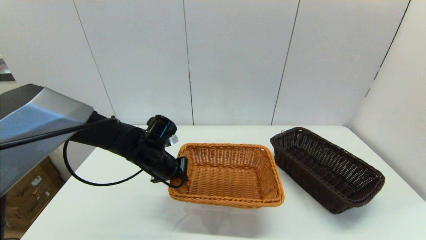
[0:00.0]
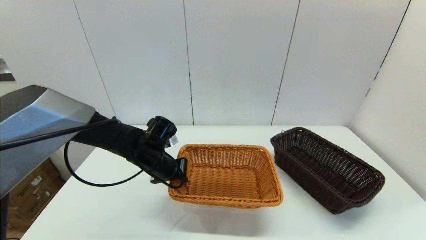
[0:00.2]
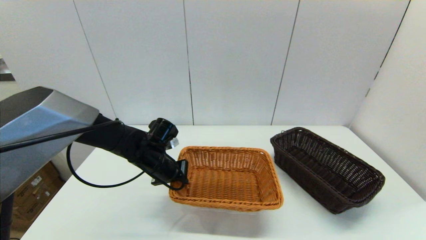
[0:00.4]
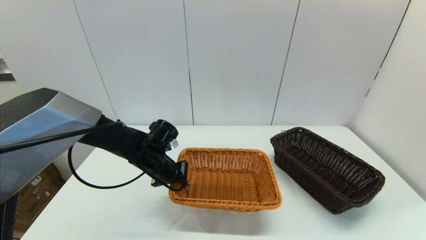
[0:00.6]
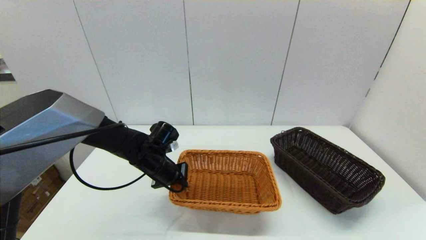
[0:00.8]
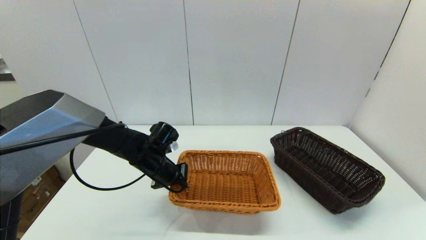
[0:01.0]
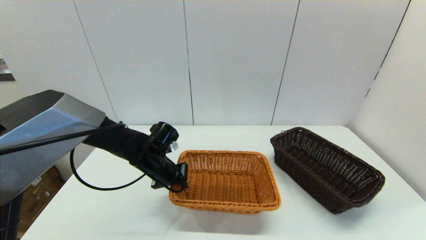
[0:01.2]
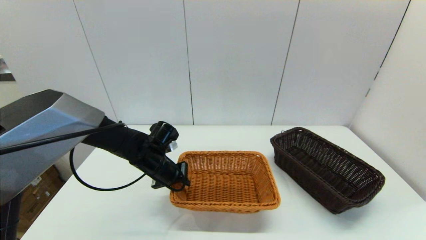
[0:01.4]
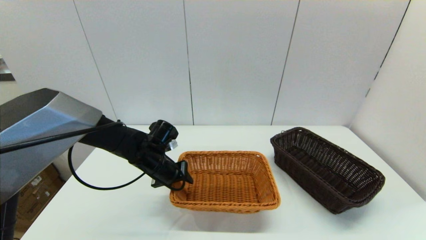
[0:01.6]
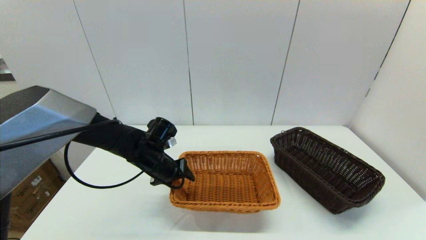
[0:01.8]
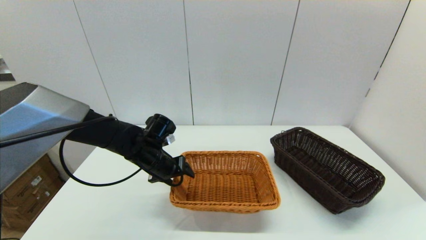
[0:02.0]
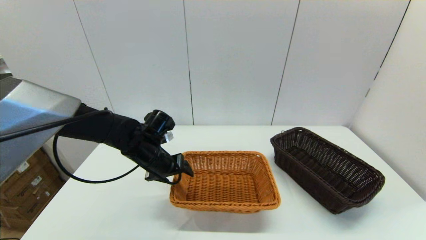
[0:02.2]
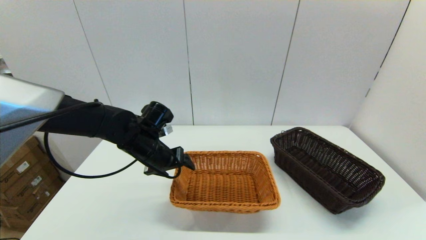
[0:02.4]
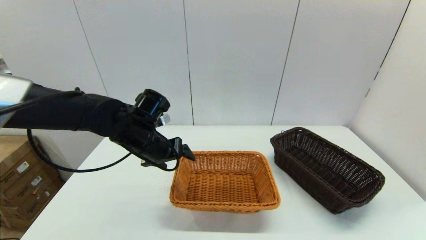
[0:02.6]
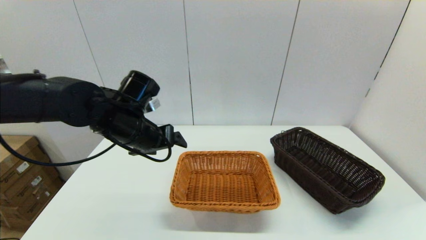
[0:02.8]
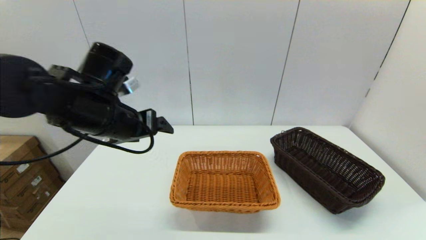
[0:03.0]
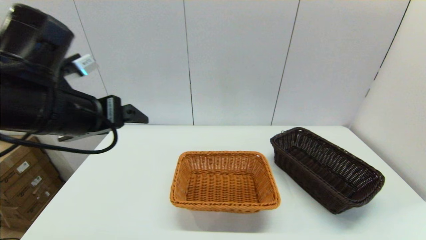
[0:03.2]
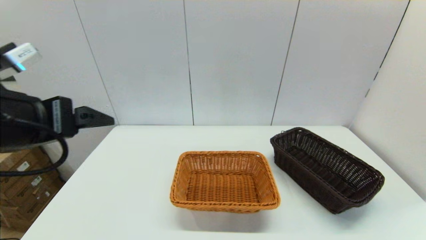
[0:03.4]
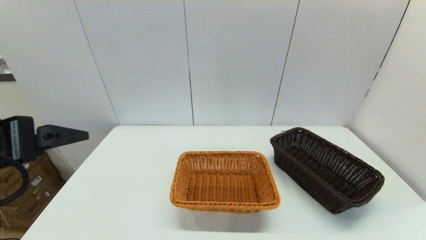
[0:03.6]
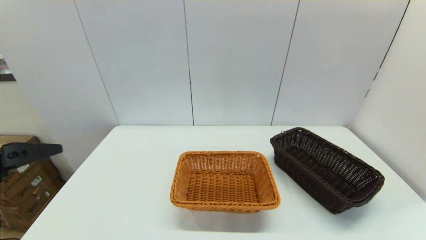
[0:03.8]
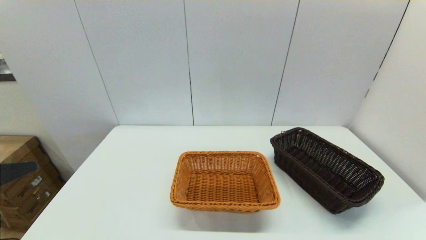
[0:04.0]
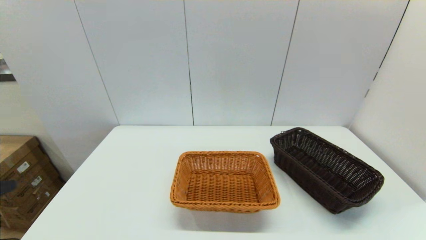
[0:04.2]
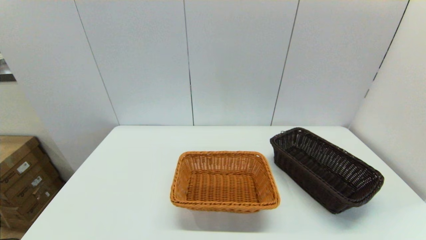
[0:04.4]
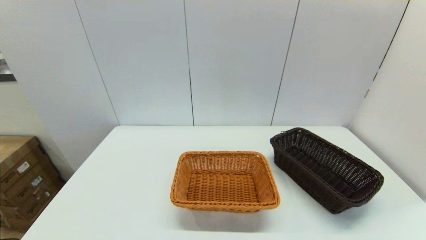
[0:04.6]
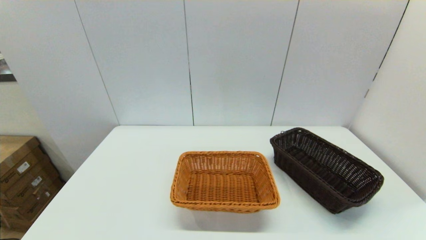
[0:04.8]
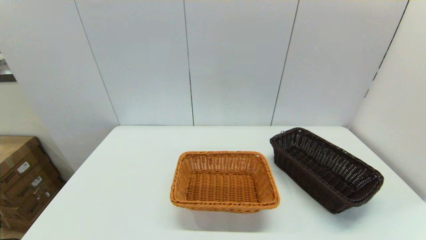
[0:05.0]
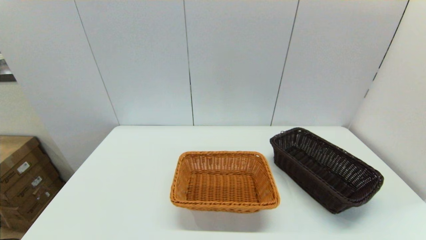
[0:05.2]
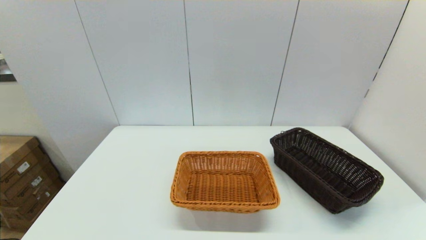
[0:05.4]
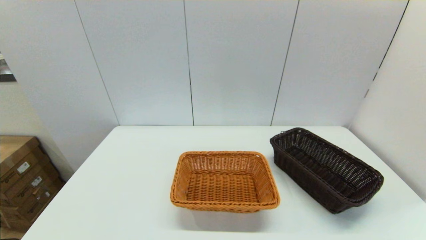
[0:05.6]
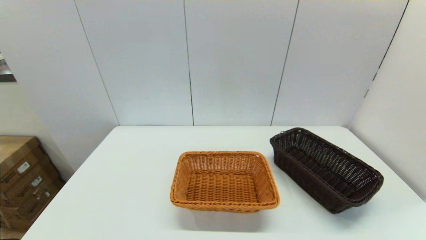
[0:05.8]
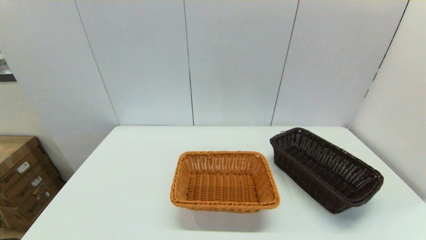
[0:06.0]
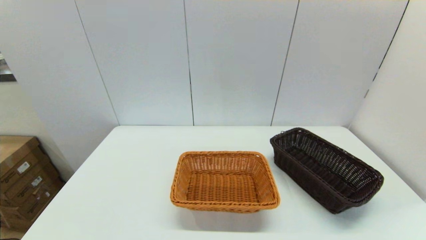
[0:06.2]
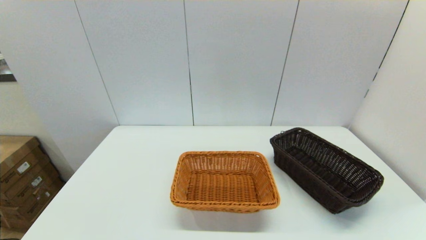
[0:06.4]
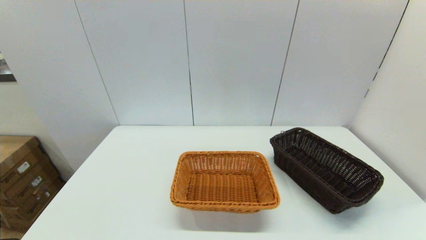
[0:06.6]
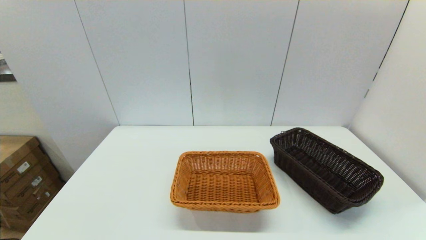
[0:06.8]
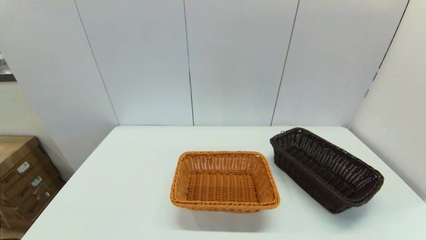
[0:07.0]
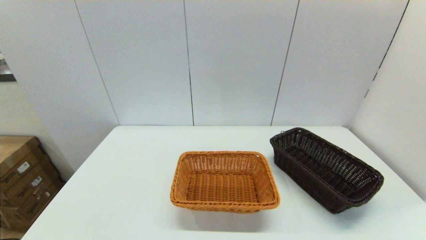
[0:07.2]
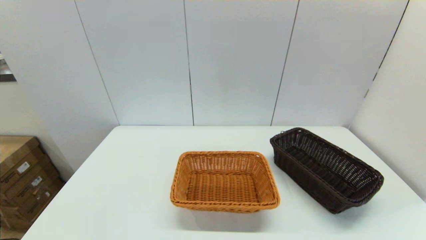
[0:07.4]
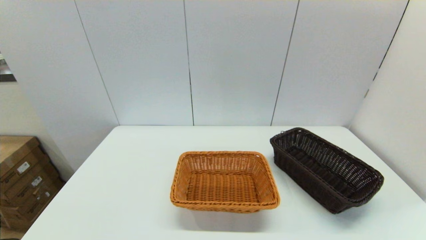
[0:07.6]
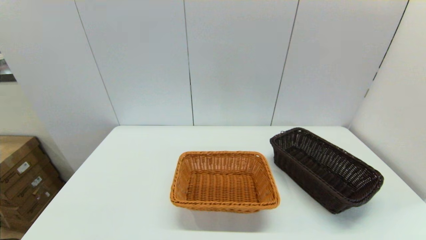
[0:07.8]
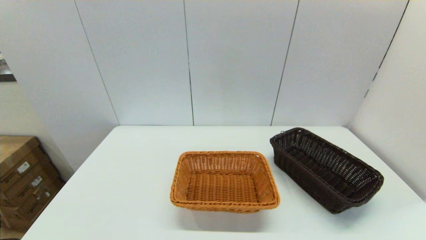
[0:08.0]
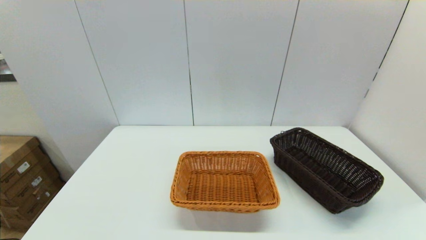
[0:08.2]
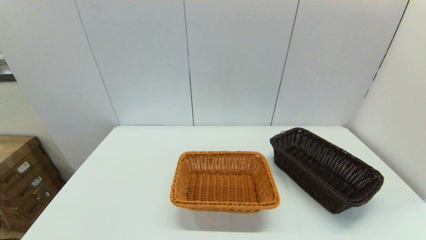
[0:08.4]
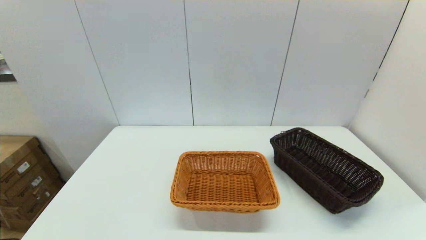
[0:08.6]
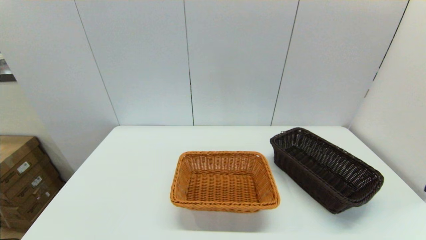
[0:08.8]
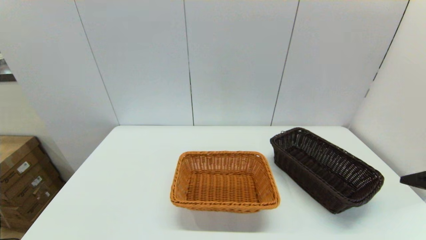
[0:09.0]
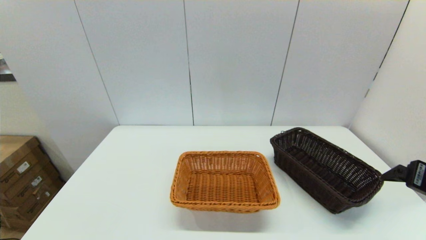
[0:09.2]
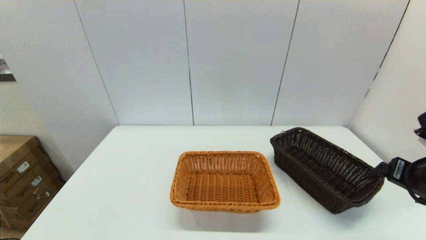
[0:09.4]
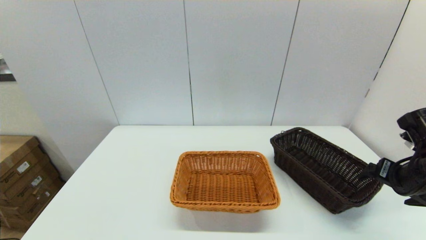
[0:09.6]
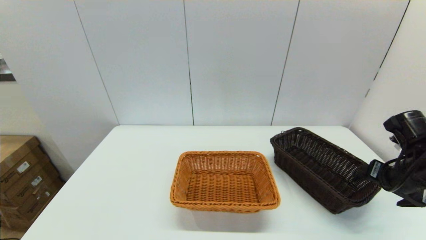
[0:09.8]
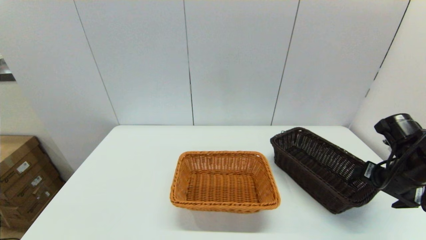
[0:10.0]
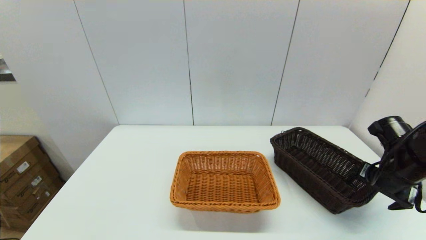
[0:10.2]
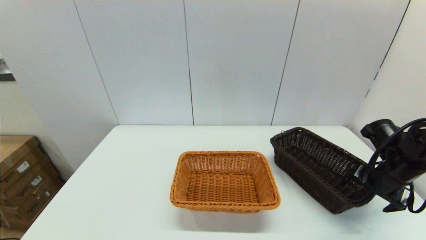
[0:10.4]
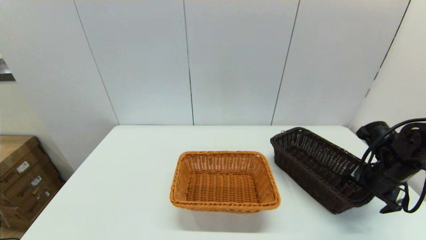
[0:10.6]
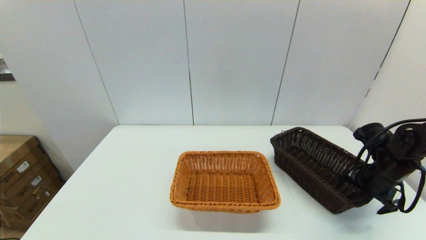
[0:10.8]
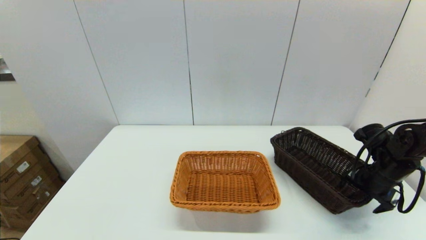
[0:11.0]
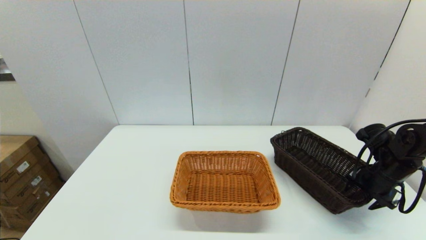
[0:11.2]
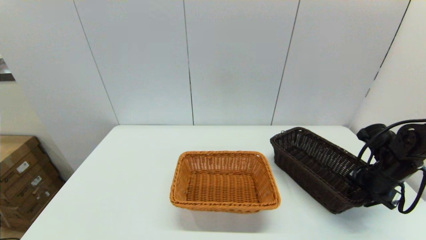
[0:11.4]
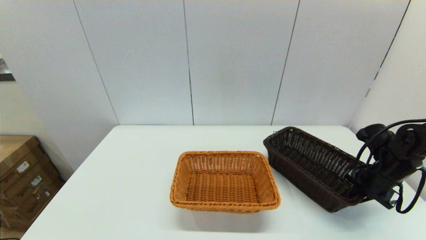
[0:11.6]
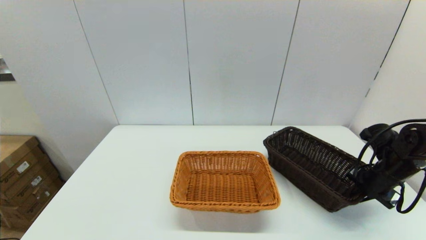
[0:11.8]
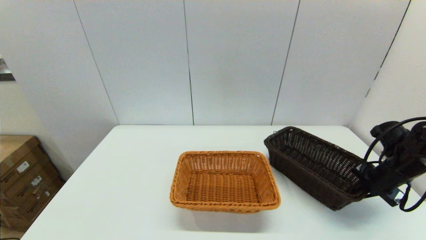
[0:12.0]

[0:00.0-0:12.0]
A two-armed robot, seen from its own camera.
Task of the whole recording: stack a basket on top of another basket.
Step, 0:00.0 to 0:02.4: Place the light basket on the middle of the table with the left gripper.
0:00.0 to 0:01.6: The left gripper opens its fingers.
0:01.6 to 0:03.0: The left gripper travels upward and backward by about 20 cm, and opens its fingers.
0:03.0 to 0:04.4: The left gripper moves backward and to the left, approximately 30 cm.
0:09.0 to 0:10.4: The right gripper moves forward and downward, roughly 20 cm.
0:10.4 to 0:12.0: The right gripper closes its fingers.

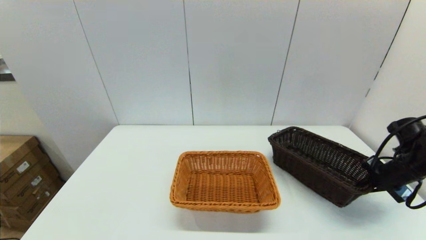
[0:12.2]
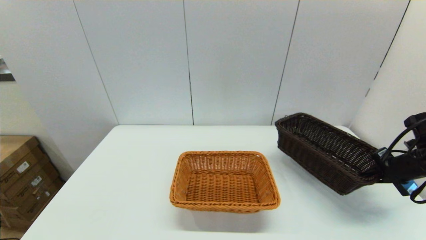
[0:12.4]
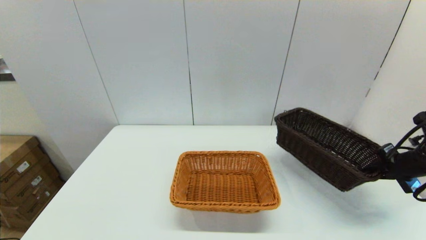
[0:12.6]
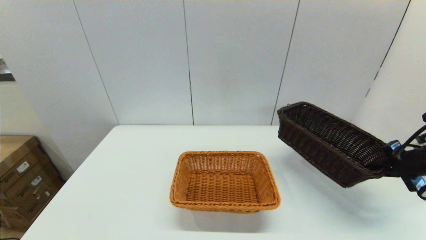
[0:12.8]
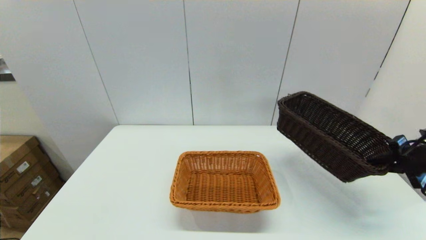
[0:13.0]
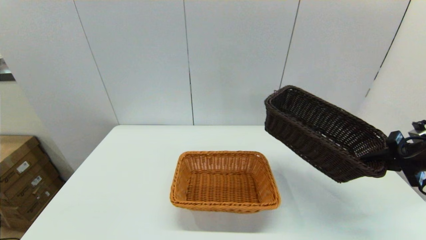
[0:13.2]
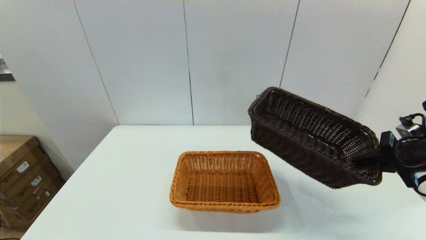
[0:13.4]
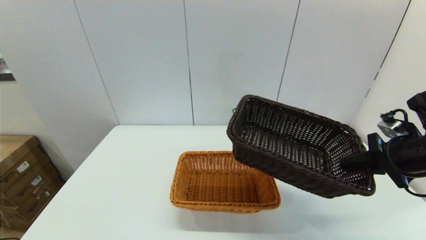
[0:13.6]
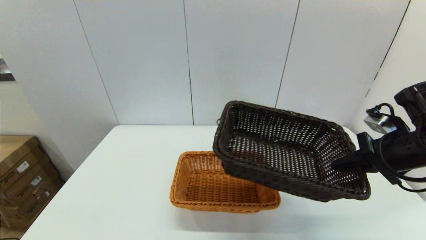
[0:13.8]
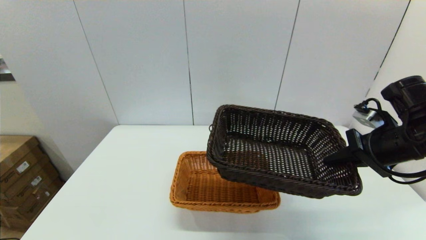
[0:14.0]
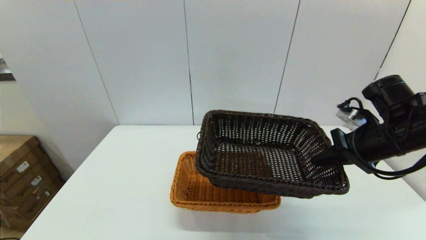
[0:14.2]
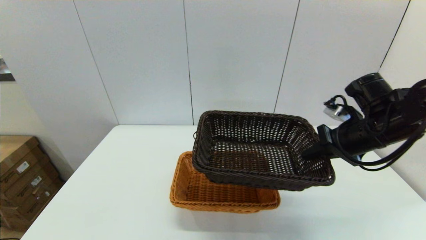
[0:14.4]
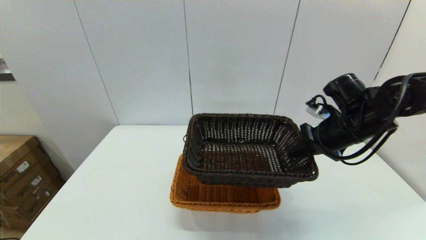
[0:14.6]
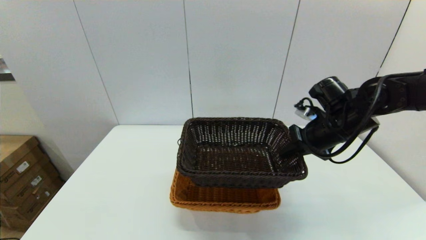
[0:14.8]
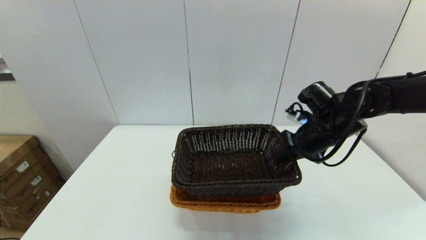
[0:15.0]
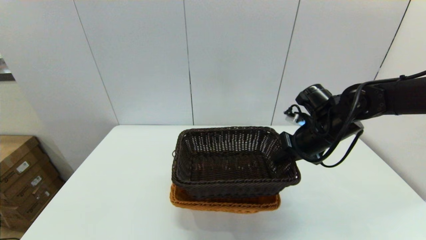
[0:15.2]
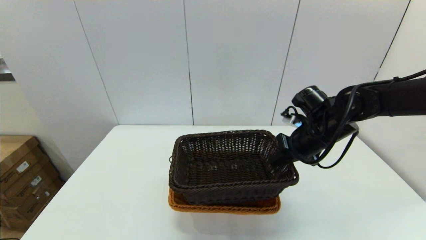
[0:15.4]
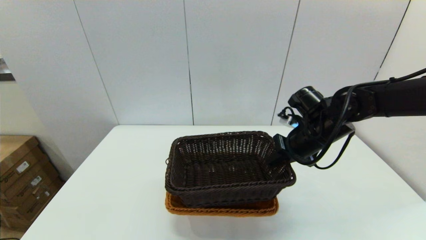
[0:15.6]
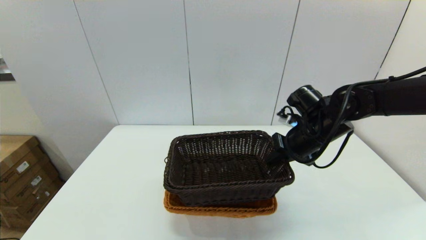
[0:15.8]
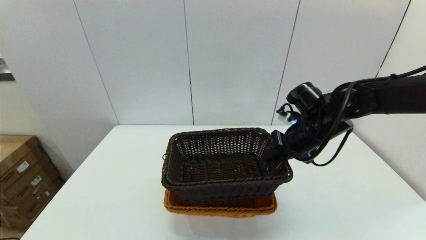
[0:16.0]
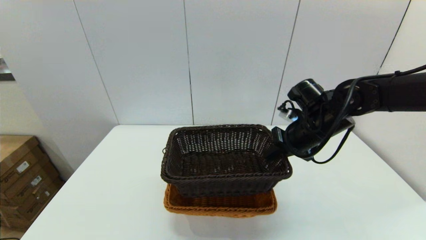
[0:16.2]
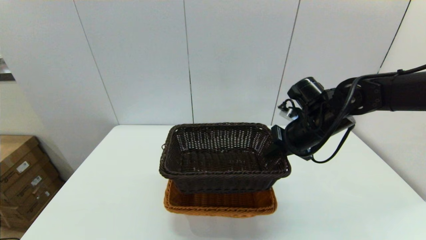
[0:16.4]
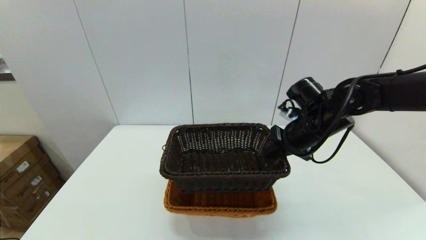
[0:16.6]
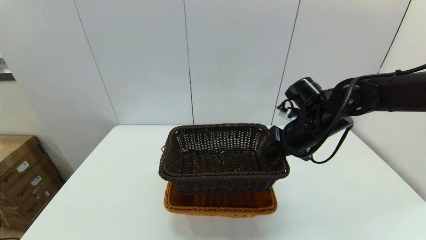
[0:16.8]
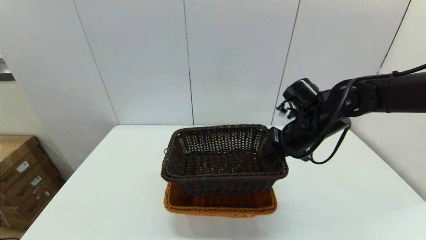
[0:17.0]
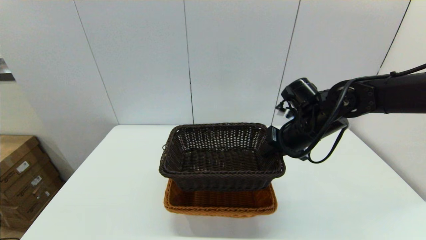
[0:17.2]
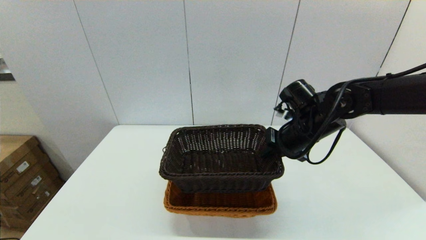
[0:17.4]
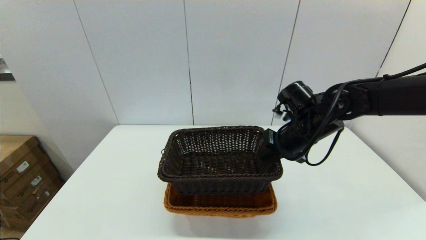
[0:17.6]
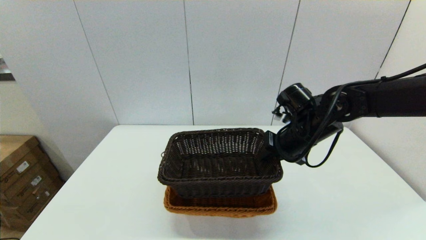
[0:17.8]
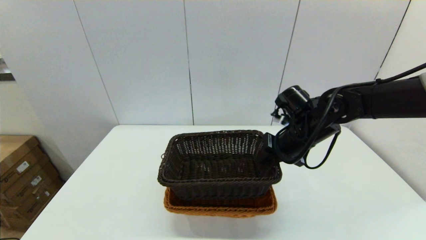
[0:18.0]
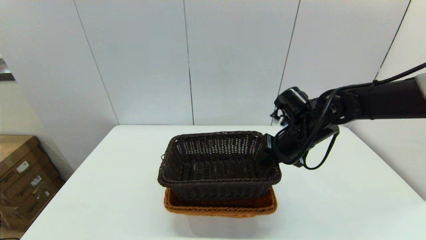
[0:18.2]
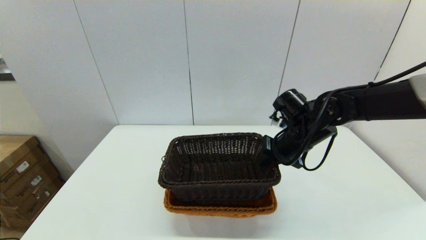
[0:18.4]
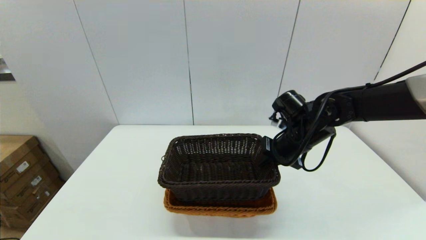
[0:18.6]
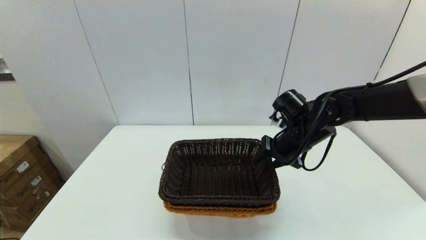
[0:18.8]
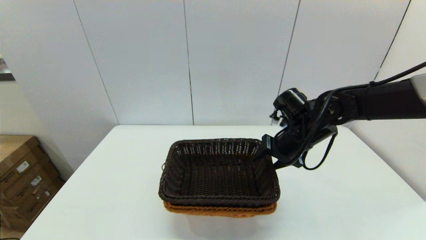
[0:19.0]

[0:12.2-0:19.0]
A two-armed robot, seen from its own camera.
Task of the whole recording: stack a basket on top of another basket.
0:12.2 to 0:13.6: The right gripper travels upward and to the left by approximately 10 cm.
0:13.6 to 0:15.0: The right gripper goes some 15 cm to the left and forward.
0:15.0 to 0:17.6: The grippers stay close to where they were, moving slightly.
0:17.6 to 0:19.0: The right gripper opens.
